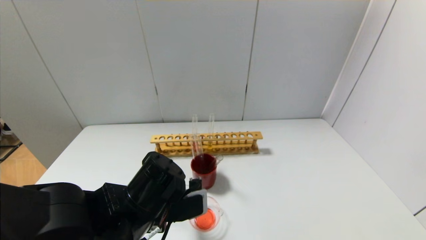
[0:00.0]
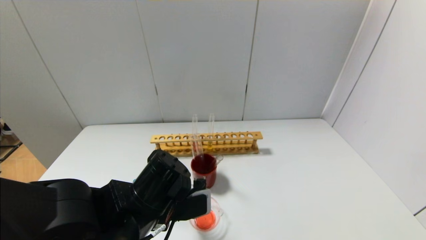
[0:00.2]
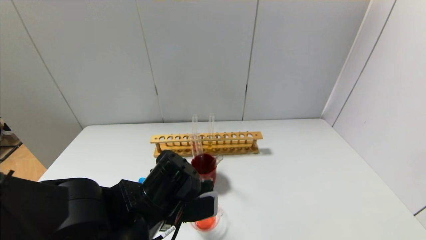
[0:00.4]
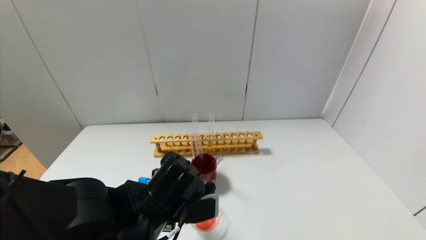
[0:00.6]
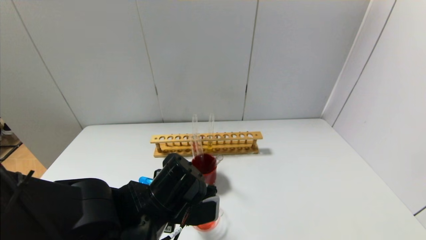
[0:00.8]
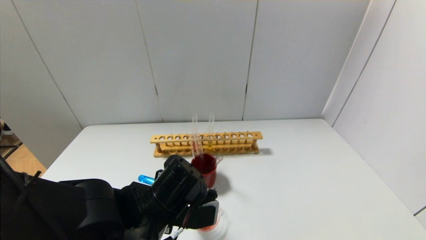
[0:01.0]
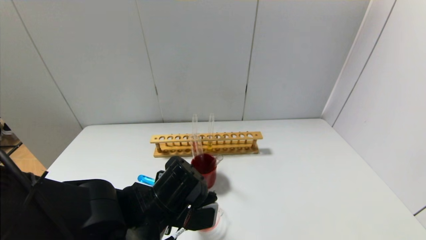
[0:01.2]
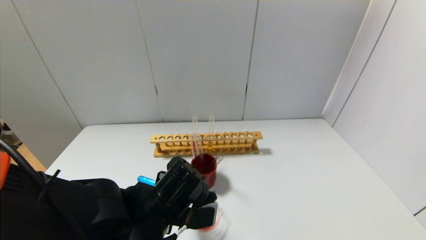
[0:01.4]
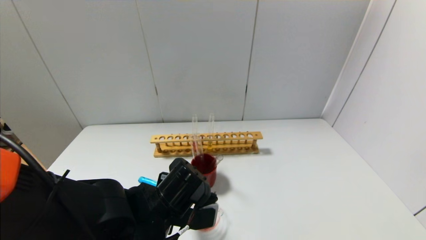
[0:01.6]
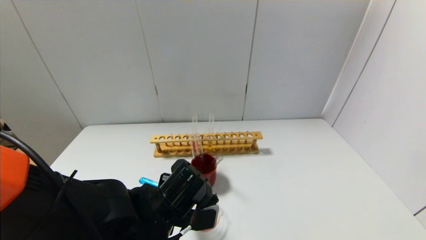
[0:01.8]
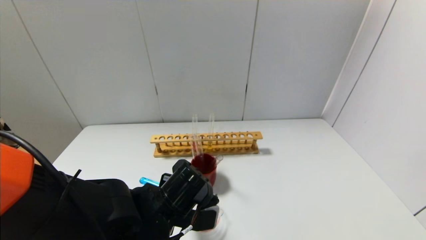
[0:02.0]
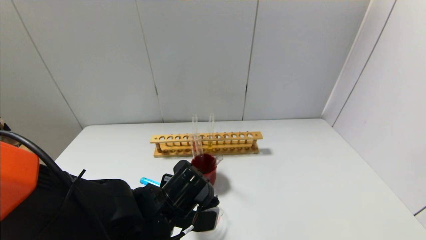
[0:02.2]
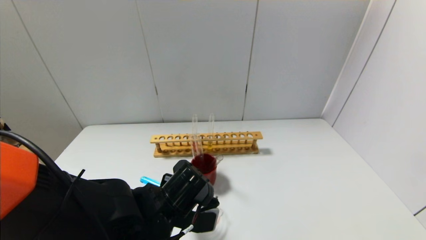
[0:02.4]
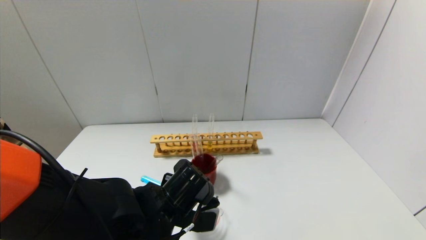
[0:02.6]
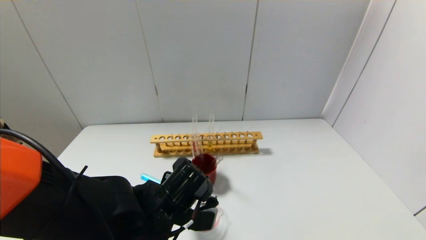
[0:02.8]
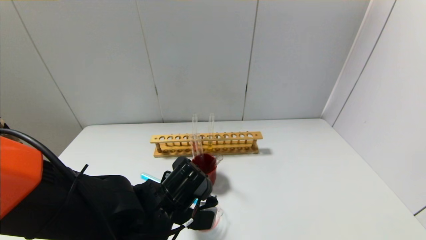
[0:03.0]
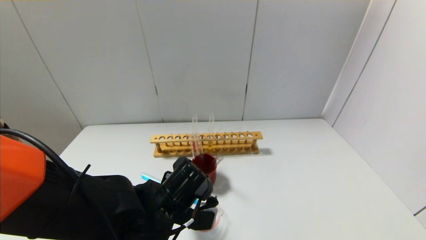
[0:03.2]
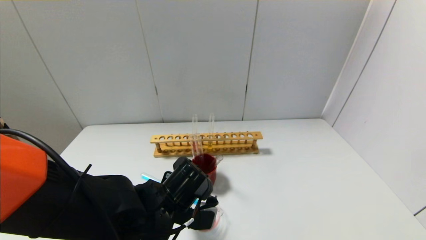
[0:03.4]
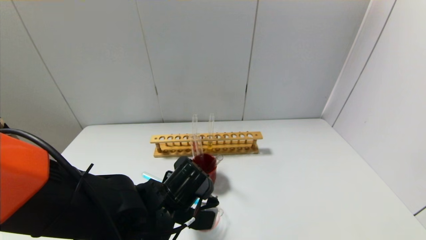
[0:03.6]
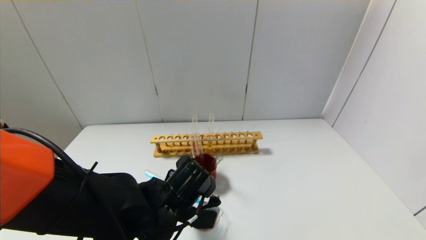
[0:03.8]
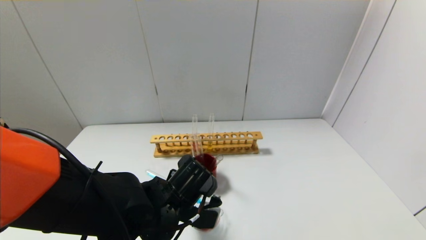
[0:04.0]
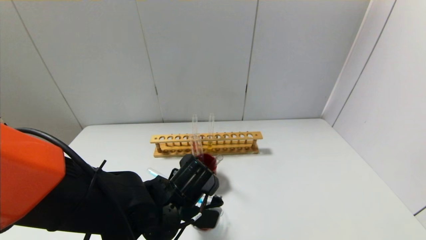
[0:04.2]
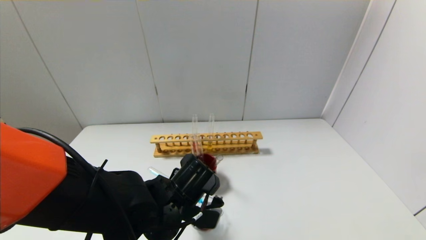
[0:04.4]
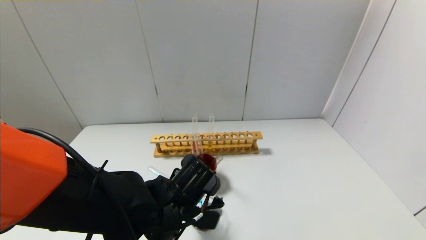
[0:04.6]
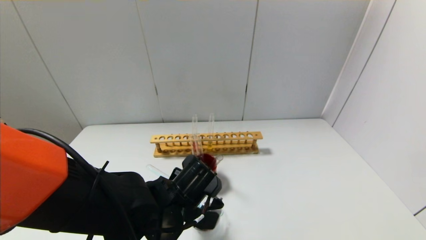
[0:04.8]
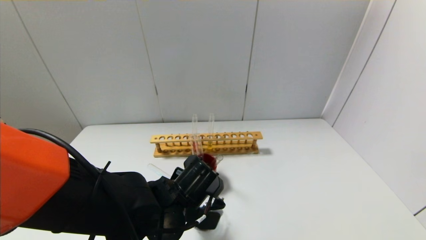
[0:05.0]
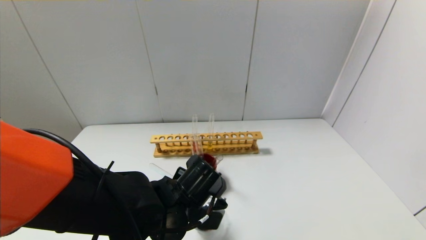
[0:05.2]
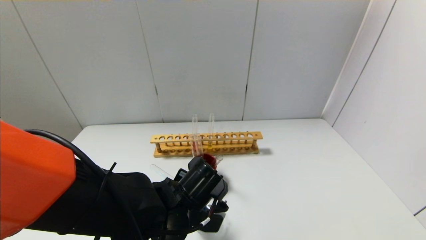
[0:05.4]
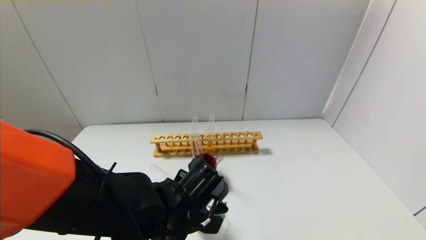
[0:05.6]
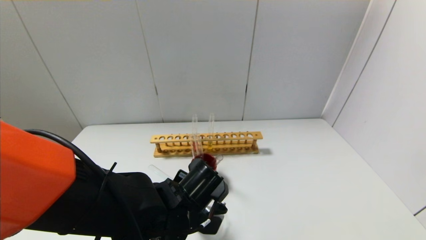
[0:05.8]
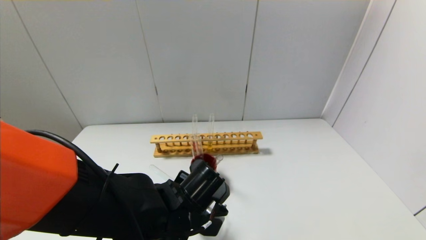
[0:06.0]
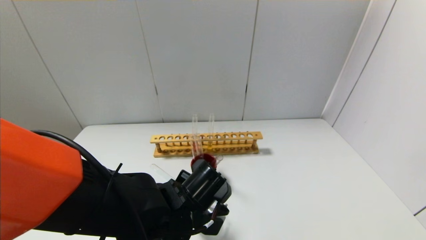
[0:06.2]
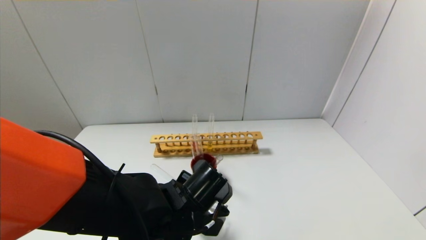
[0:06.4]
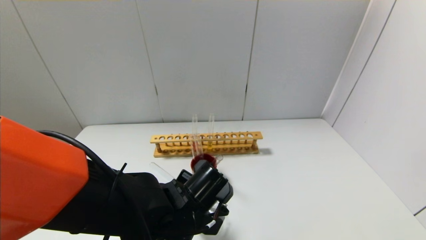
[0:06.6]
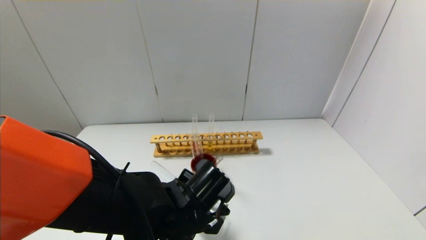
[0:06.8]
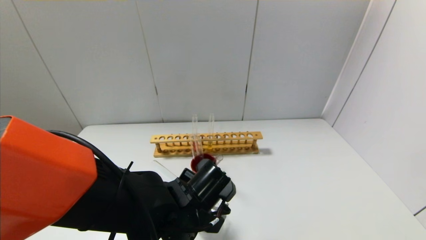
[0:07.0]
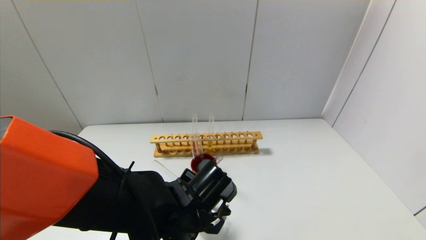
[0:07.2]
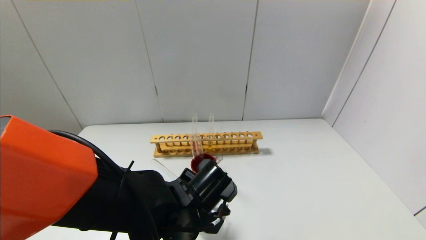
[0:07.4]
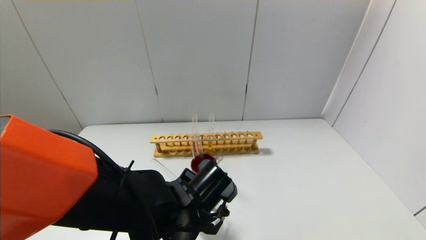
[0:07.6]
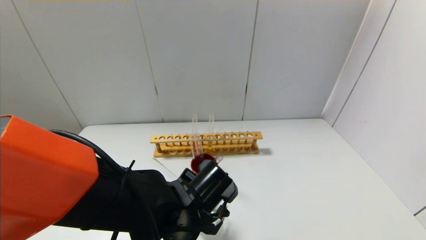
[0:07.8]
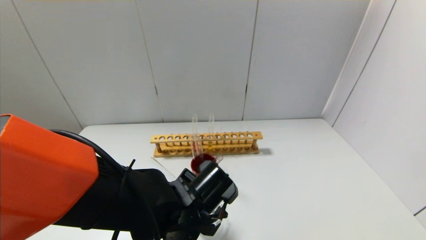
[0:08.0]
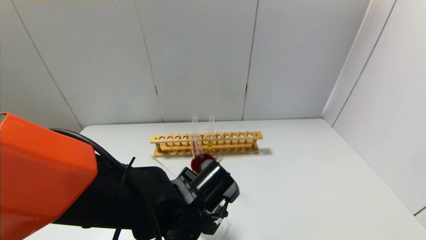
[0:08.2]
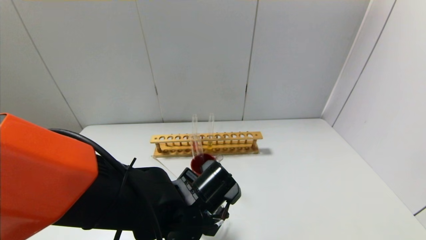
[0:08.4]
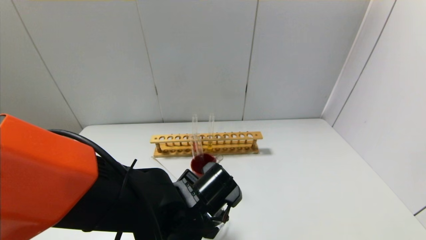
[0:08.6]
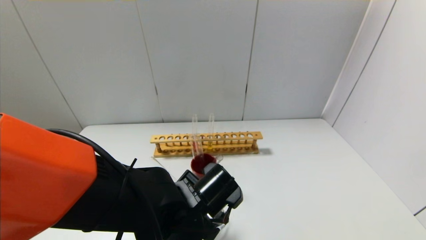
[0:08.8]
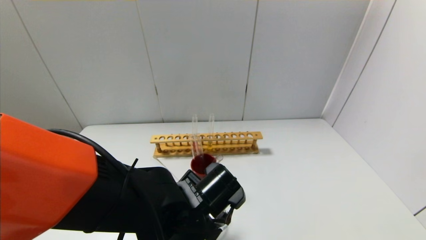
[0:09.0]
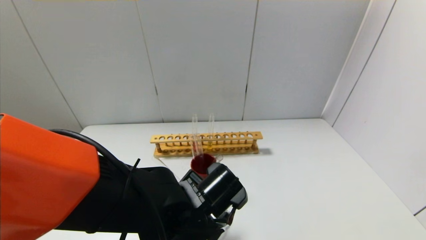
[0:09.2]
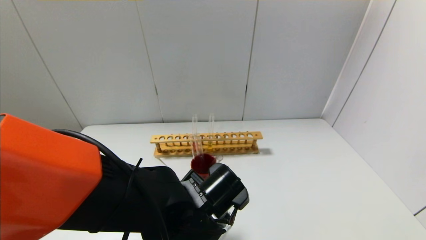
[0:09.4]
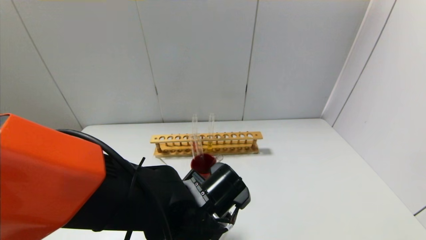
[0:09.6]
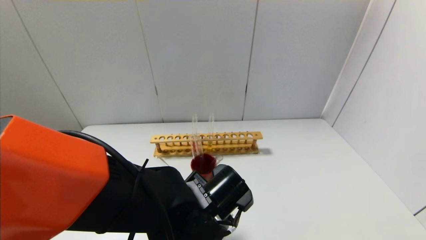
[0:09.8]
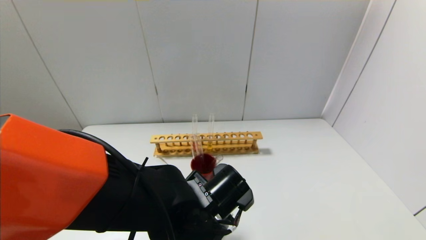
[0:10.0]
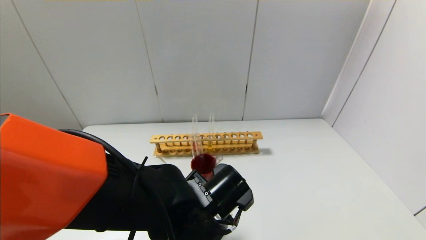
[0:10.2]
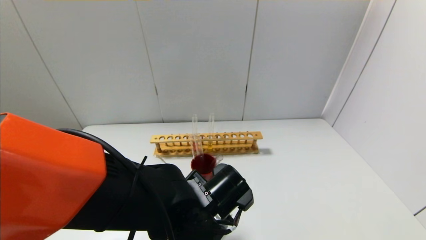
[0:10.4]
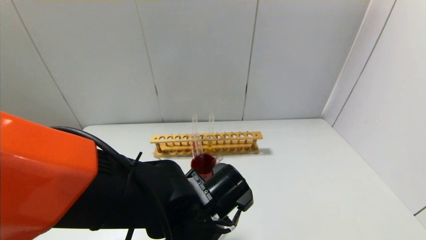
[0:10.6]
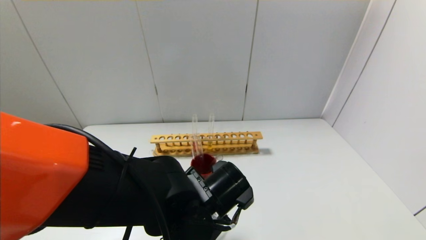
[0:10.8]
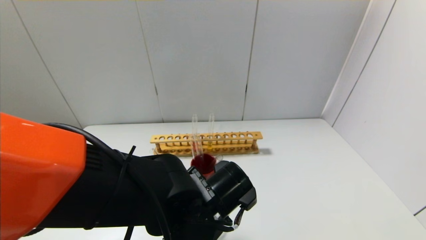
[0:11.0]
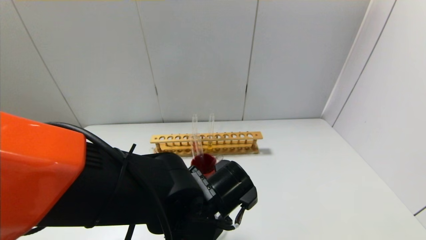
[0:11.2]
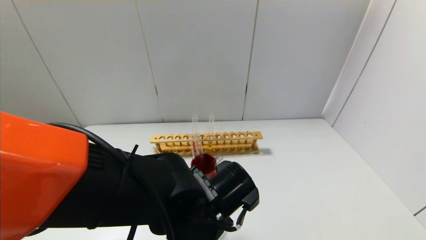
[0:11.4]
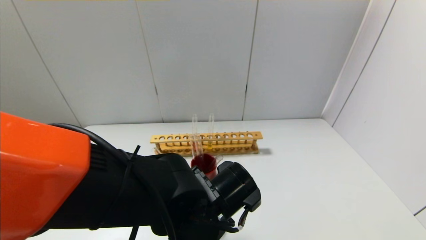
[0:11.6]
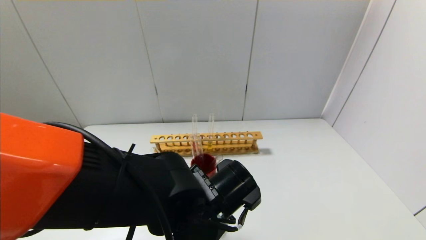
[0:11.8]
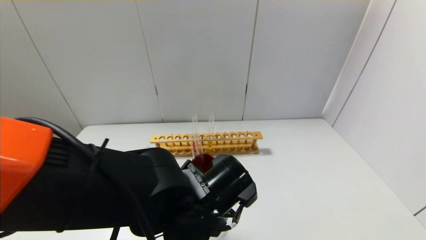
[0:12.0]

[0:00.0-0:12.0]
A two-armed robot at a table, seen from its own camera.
0:00.0 to 0:01.6: The grippers stay close to where they were, moving slightly.
0:01.6 to 0:06.0: There are only small adjustments of the grippers.
0:06.0 to 0:09.0: There are only small adjustments of the grippers.
0:09.0 to 0:10.4: Neither gripper changes place.
0:10.4 to 0:12.0: The grippers stay close to where they were, moving slightly.

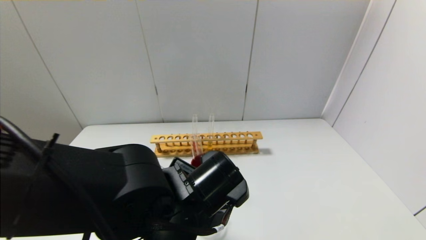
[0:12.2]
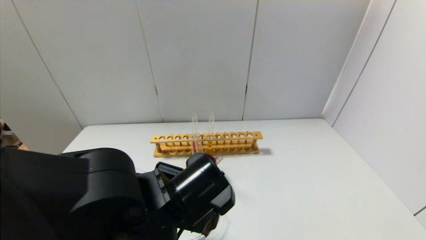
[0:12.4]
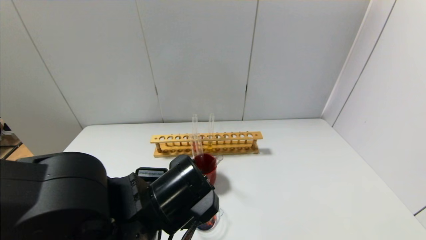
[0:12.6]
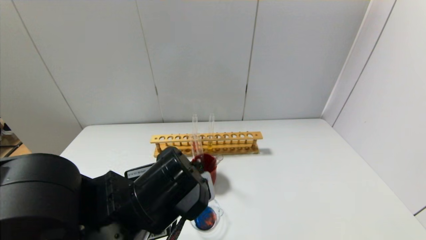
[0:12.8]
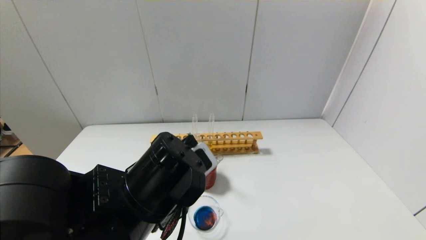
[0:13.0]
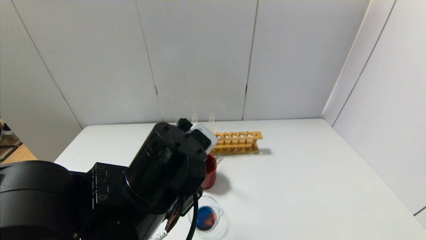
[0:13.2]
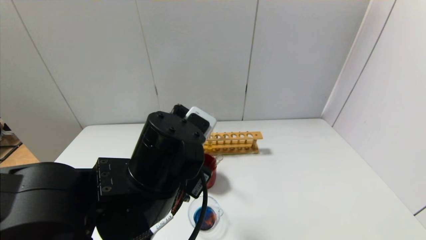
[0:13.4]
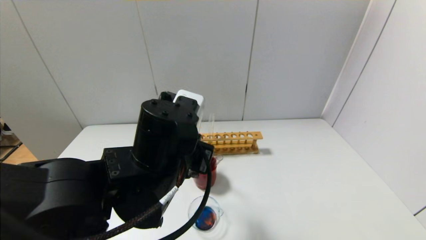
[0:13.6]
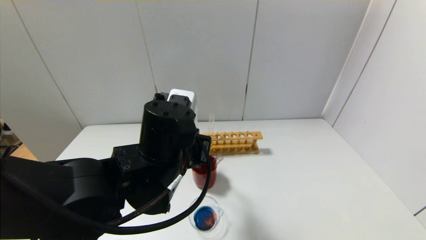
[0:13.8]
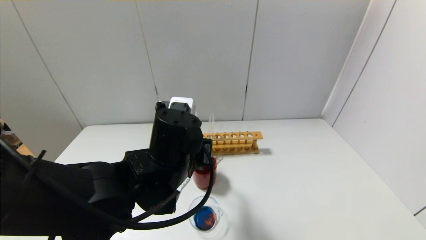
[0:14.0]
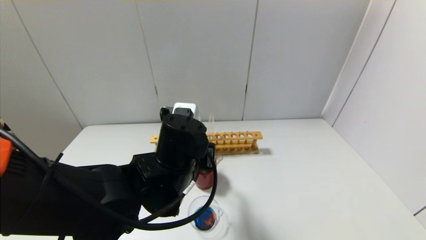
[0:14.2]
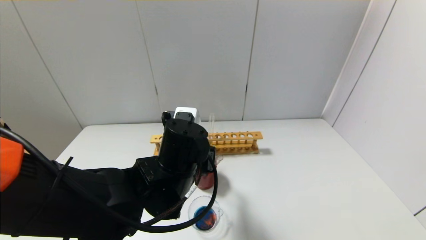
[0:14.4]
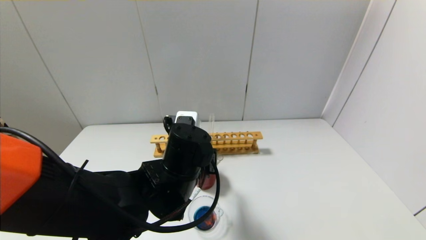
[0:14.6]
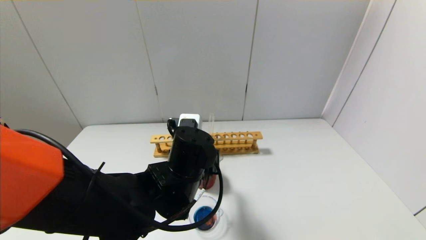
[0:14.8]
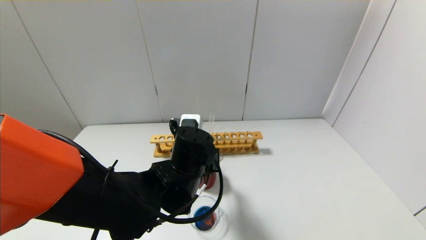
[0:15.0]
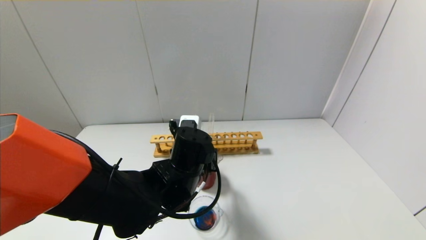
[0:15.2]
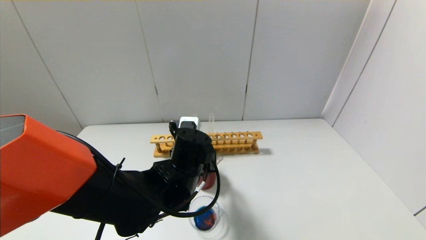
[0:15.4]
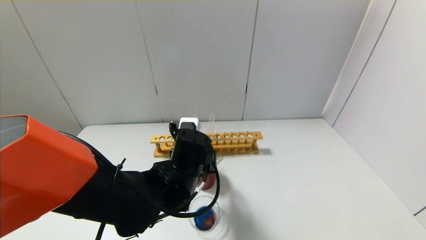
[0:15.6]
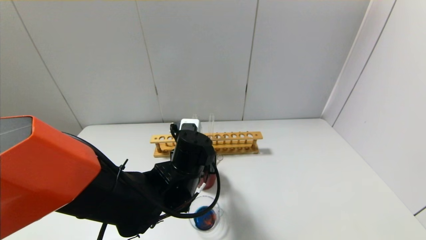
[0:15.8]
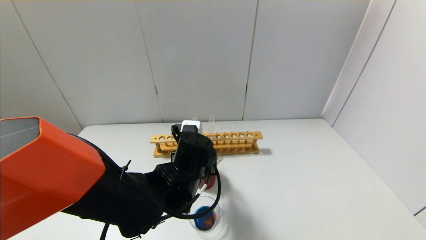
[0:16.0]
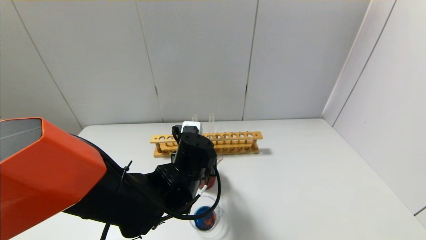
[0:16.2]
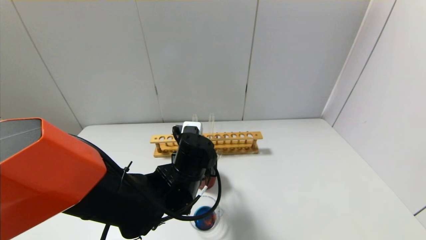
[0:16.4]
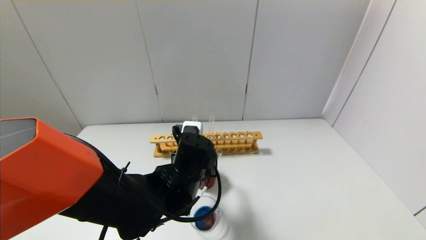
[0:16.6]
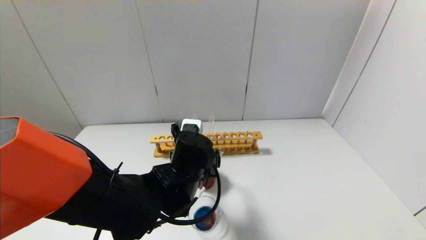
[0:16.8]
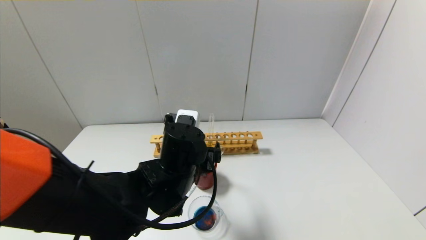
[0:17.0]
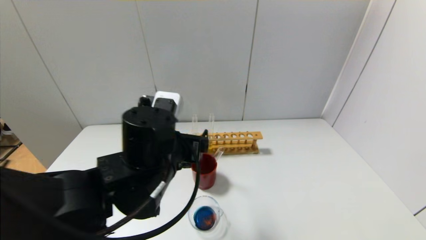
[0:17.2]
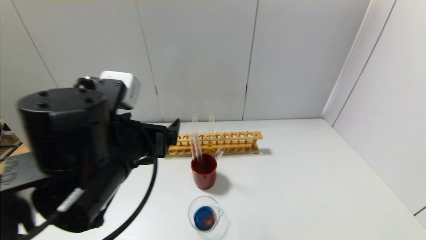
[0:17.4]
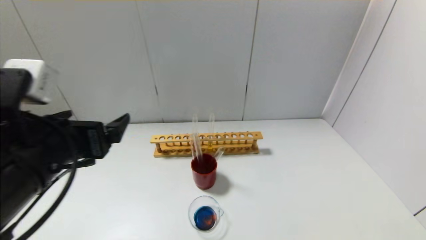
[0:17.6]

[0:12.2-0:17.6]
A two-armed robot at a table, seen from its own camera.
Step, 0:12.4 to 0:16.8: Place the test tube into the brown cup with the left gripper.
0:12.2 to 0:13.6: The left gripper changes place by some 5 cm.
0:13.6 to 0:15.0: The left gripper shifts about 5 cm downward.
0:15.0 to 0:16.2: The grippers stay close to where they were, moving slightly.
0:16.2 to 0:17.6: The left gripper moves to the left, upward and backward, about 25 cm, and opens.
